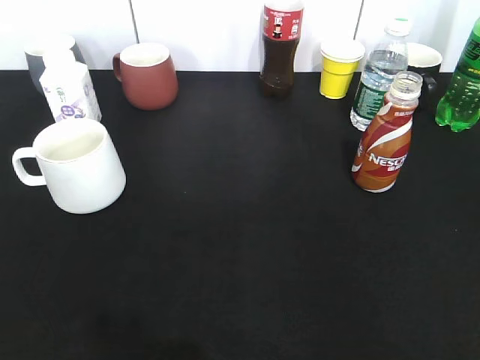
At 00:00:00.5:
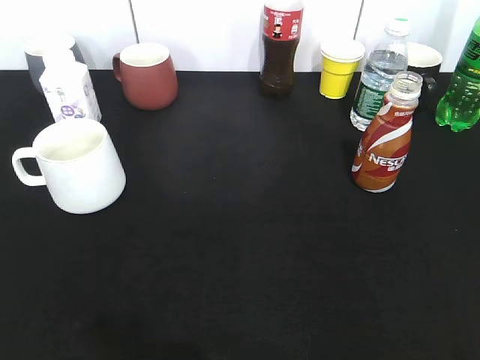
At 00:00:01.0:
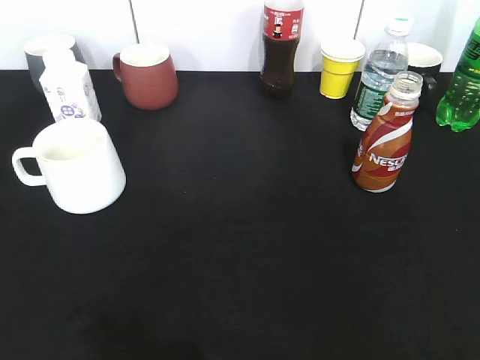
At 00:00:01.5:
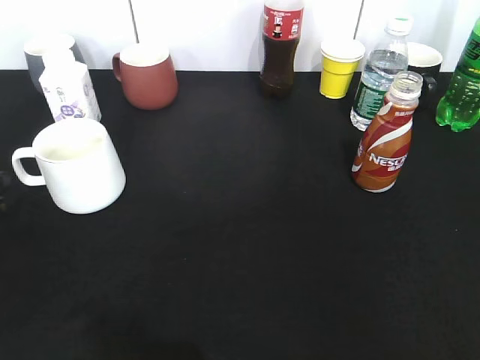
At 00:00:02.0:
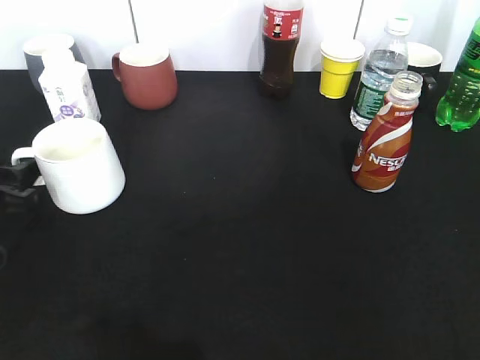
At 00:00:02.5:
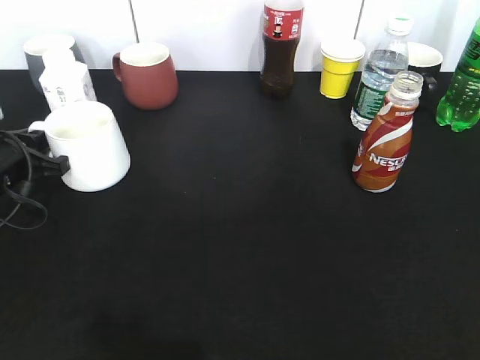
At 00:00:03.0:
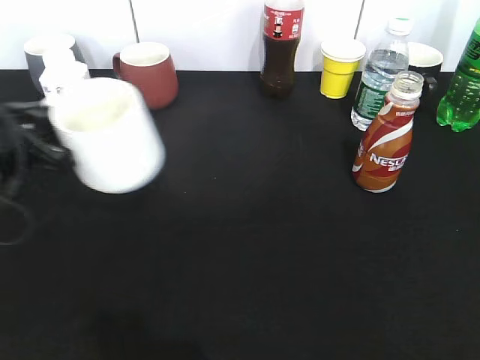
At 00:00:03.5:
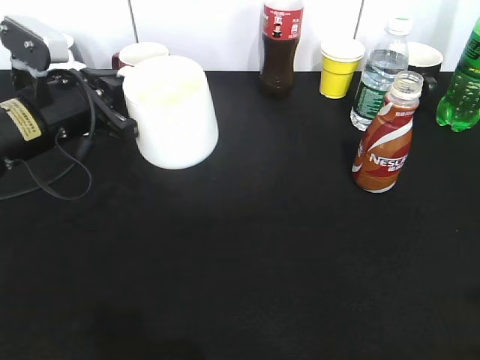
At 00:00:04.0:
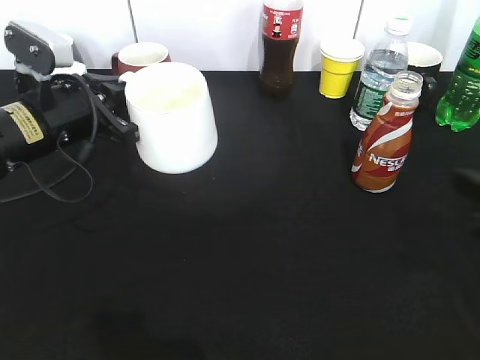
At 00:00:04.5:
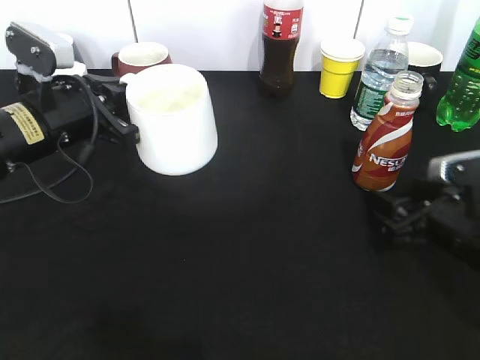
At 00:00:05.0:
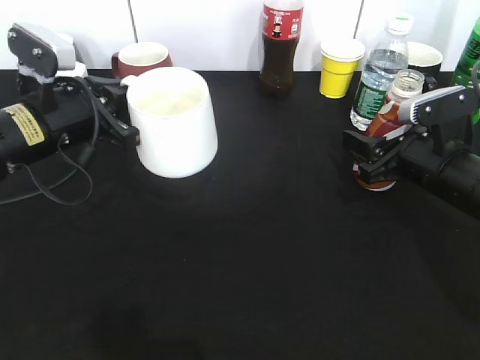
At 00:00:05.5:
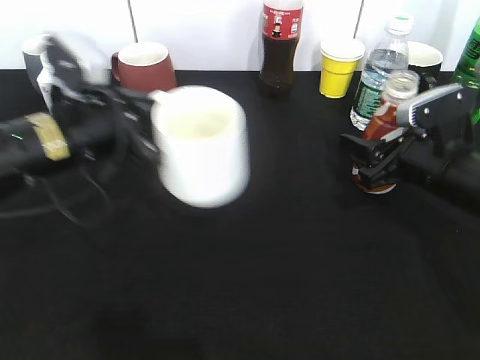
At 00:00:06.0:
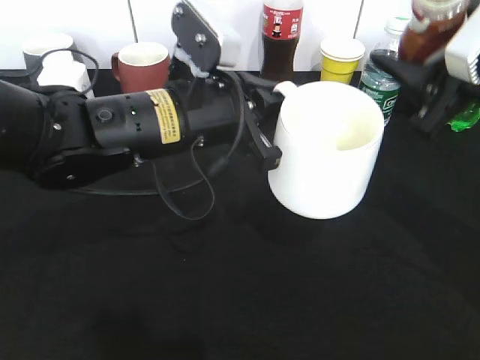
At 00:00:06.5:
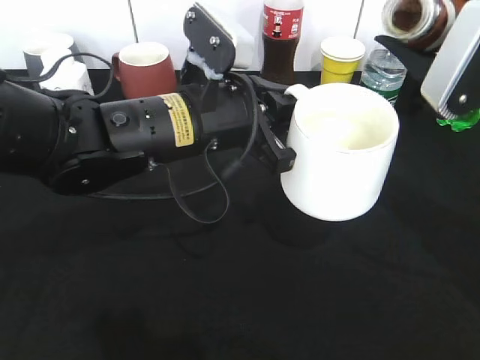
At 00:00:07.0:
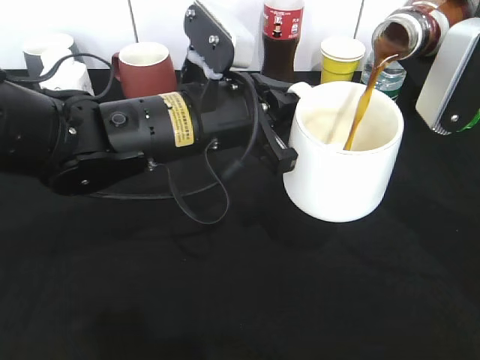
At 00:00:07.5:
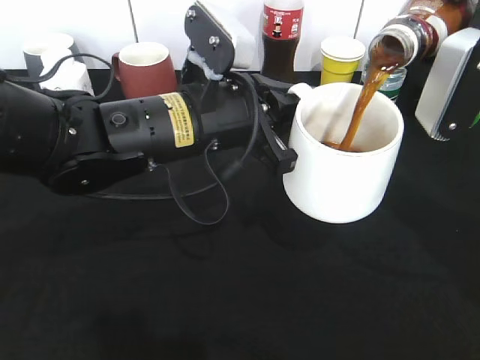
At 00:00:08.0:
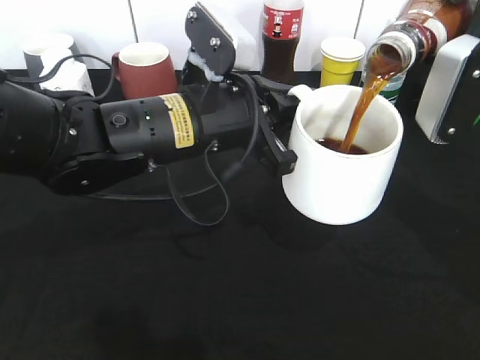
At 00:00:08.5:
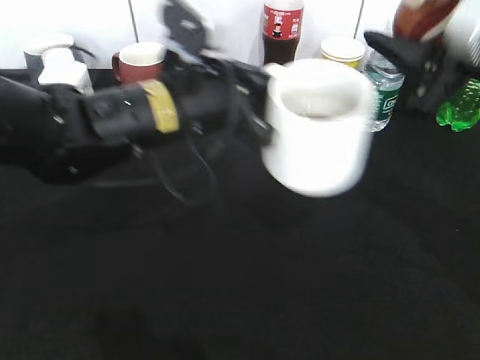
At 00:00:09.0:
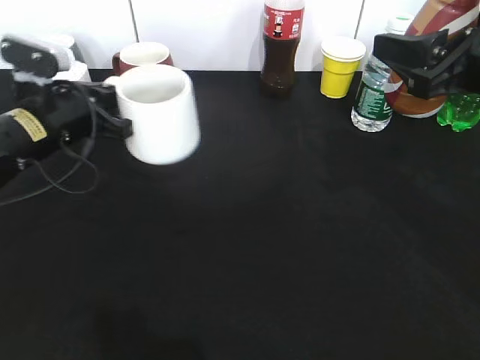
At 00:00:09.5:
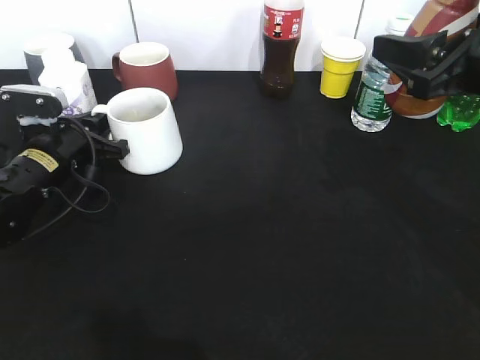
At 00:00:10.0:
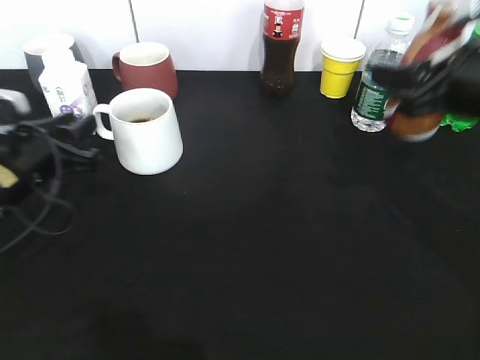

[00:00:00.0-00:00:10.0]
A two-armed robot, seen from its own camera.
Step, 00:00:02.5 to 00:00:03.0: Lift the white cup with left gripper.
Step, 00:00:03.5 to 00:00:04.5: Grasp the bottle with coffee with right gripper.
Step, 00:00:05.0 to 00:00:08.0: Pour the coffee from bottle to cup with right gripper.
Step, 00:00:08.5 to 00:00:09.5: Place the white cup on the table with left gripper.
00:00:00.0 to 00:00:02.0: The left gripper heads forward and downward, covering some 30 cm, and opens.
00:00:02.0 to 00:00:04.0: The left gripper heads to the right, forward and upward, covering some 15 cm, and closes; the right gripper goes approximately 20 cm forward and downward.
00:00:04.0 to 00:00:06.0: The left gripper goes roughly 15 cm to the right; the right gripper shifts approximately 10 cm forward, upward and to the left, and closes up.
00:00:08.0 to 00:00:10.0: The right gripper shifts by about 5 cm. Meanwhile the left gripper is displaced to the left and downward by about 20 cm, and opens.

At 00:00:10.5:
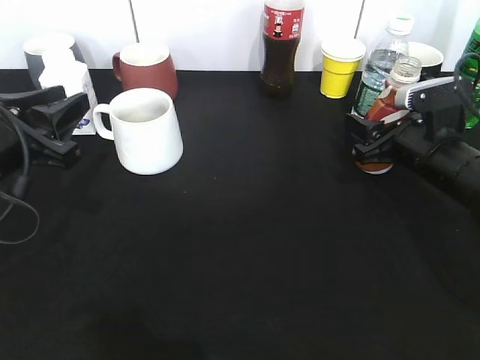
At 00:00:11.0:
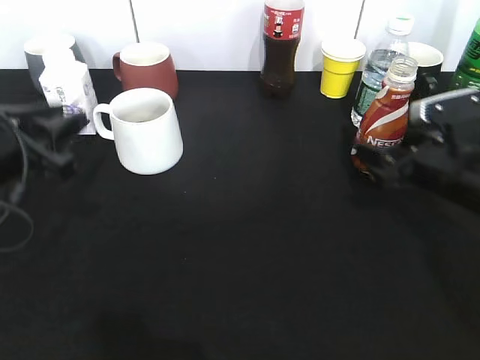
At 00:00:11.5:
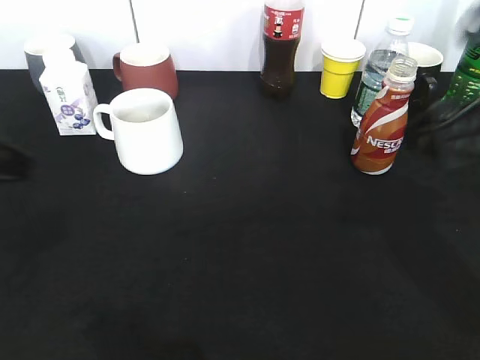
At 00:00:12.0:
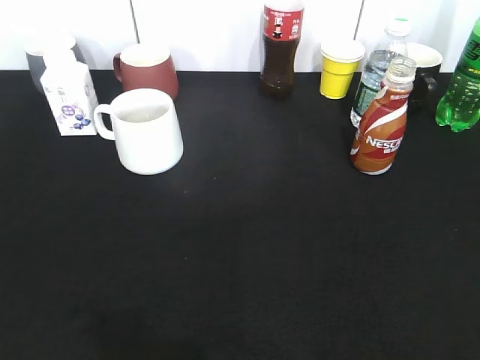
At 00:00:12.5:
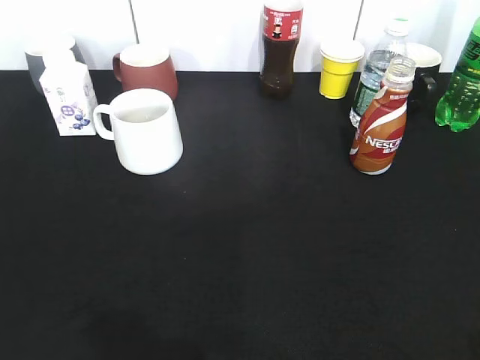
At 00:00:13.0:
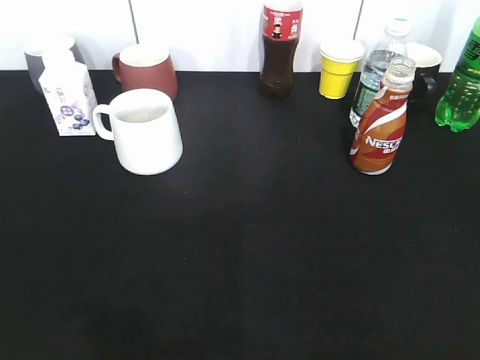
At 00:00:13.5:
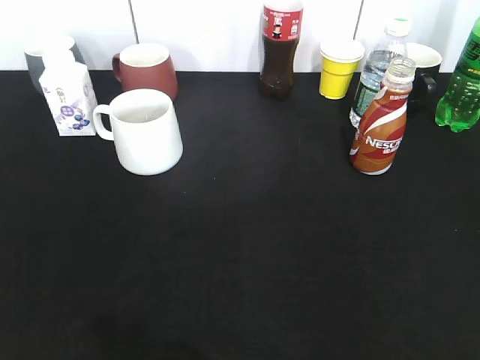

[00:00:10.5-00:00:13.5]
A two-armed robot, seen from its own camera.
00:00:10.5 to 00:00:12.0: The right gripper travels backward and upward by some 35 cm, and opens its fingers; the left gripper moves backward, about 25 cm, and opens its fingers.
00:00:12.0 to 00:00:13.5: The left gripper closes.

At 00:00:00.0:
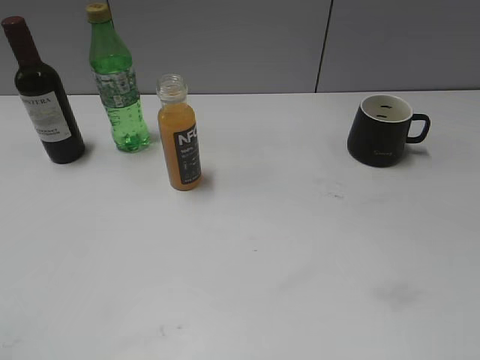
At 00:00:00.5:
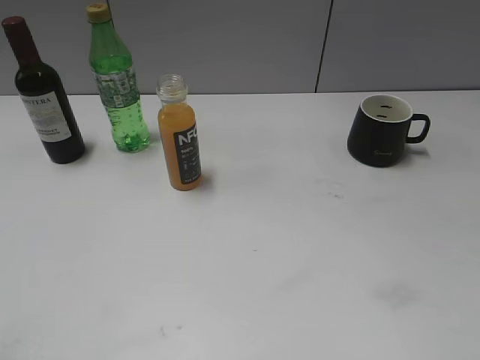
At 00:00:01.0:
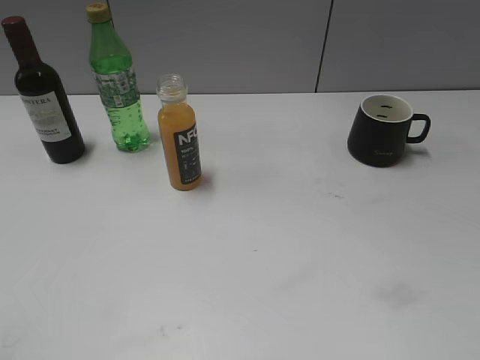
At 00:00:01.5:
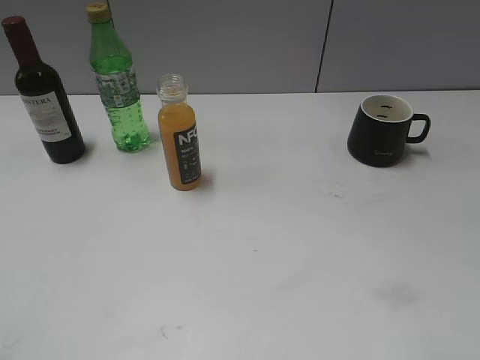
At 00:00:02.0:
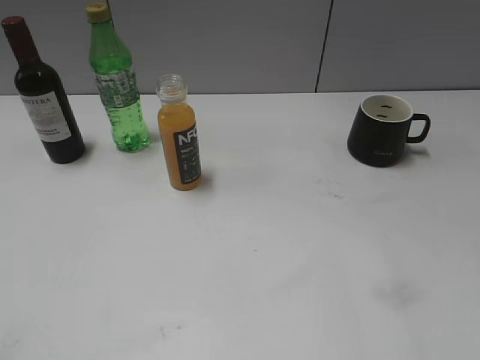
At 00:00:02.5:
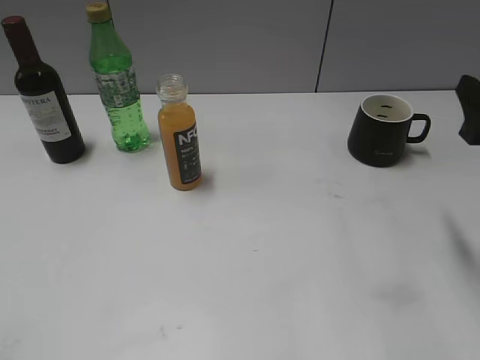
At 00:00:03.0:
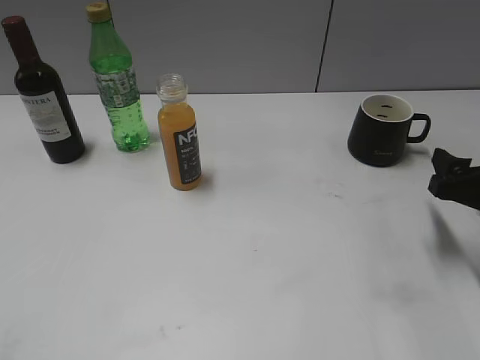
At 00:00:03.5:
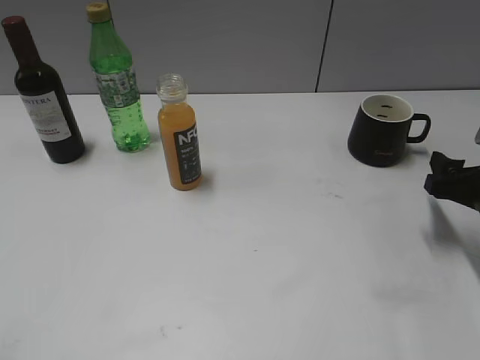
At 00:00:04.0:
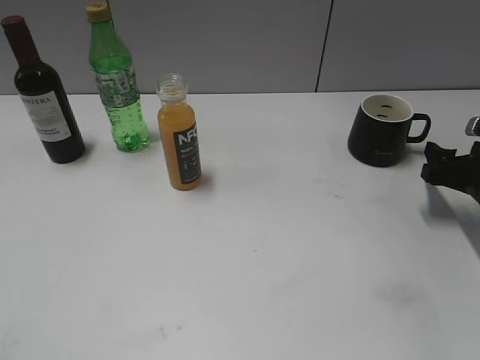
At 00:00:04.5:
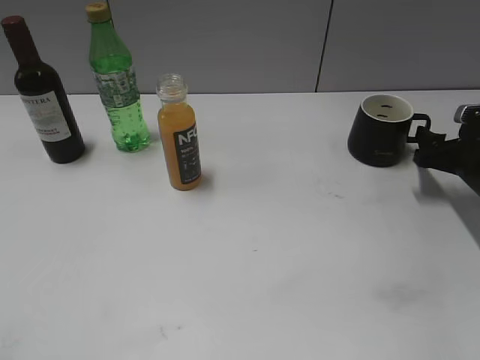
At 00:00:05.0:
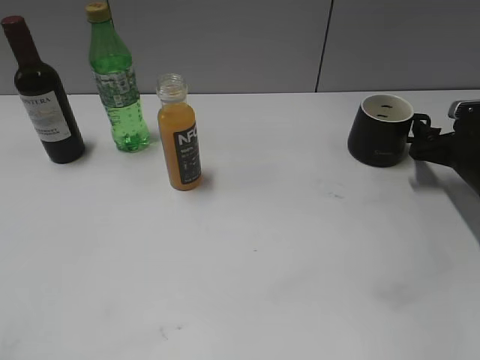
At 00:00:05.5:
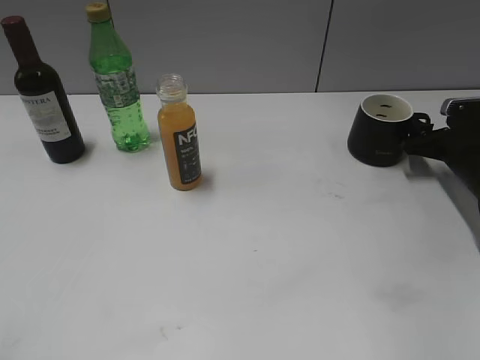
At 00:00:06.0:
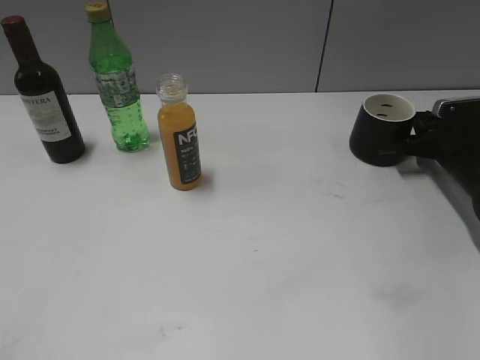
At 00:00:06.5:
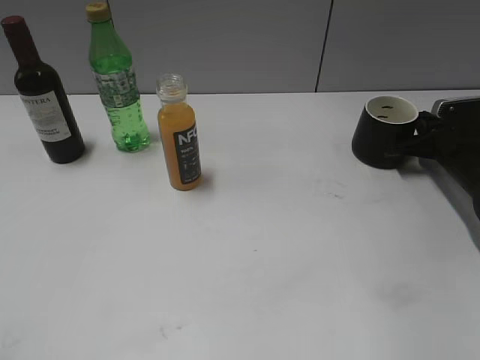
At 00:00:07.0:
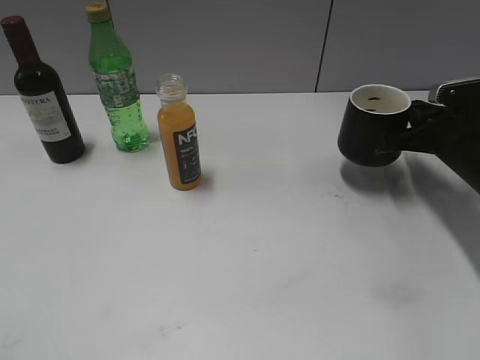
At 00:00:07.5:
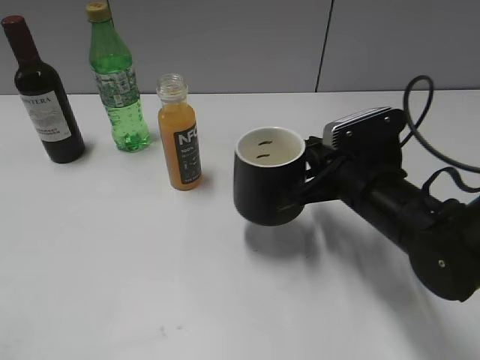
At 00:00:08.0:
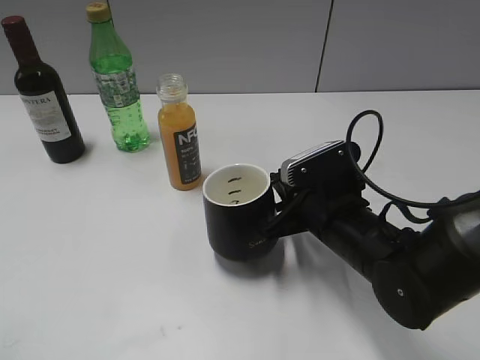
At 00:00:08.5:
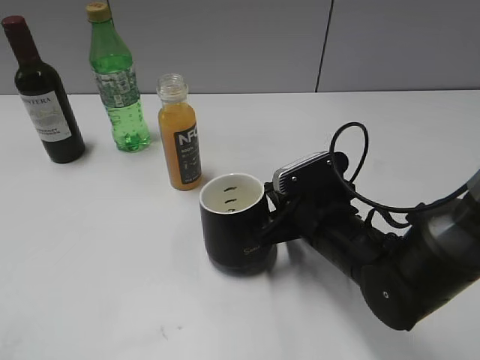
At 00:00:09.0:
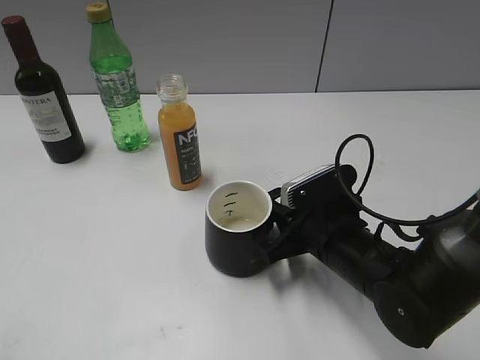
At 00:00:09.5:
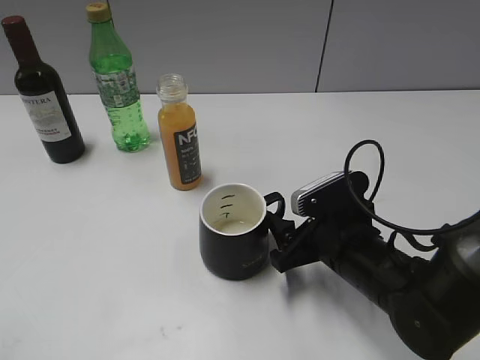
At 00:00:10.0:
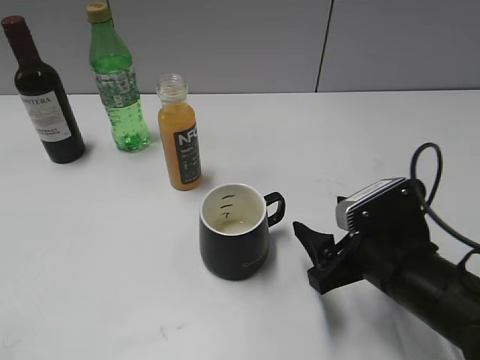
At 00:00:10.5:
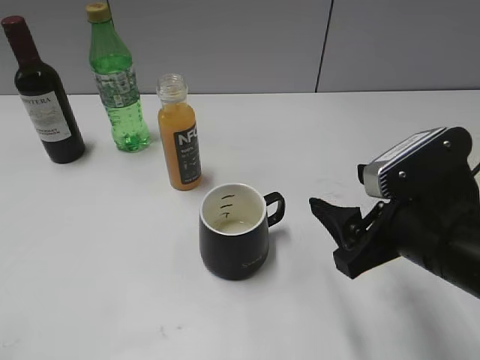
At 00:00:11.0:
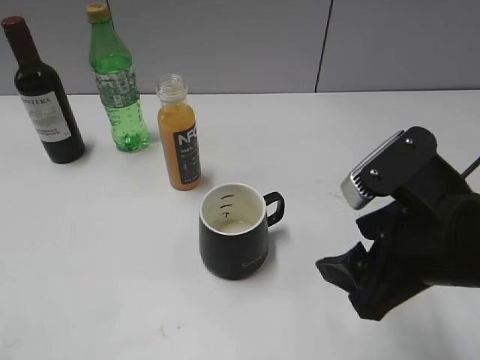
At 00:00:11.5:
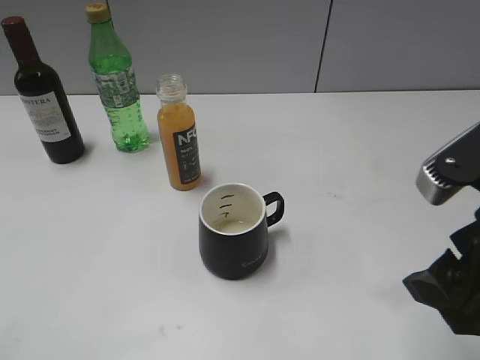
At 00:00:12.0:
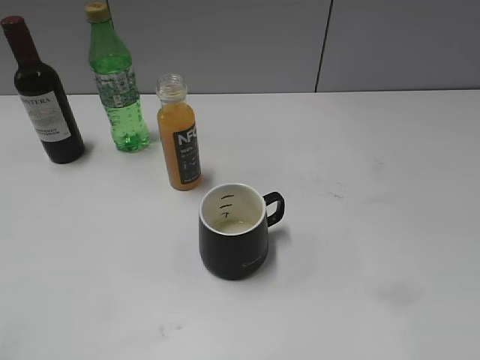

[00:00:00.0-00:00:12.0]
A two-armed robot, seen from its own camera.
Step, 00:00:02.5 to 00:00:06.0: Grasp the black cup with right gripper.
Step, 00:00:06.5 to 00:00:09.0: Place the black cup in the center of view with right gripper.
00:00:02.0 to 00:00:04.0: The right gripper travels downward and forward by roughly 25 cm.
00:00:04.0 to 00:00:06.0: The right gripper heads forward, covering some 10 cm, and closes up.
00:00:06.0 to 00:00:08.0: The right gripper is displaced to the left and backward by some 25 cm, and closes up.
00:00:08.0 to 00:00:10.0: The right gripper moves backward, roughly 5 cm, and opens up.
00:00:10.0 to 00:00:12.0: The right gripper travels upward, backward and to the right by approximately 20 cm.
